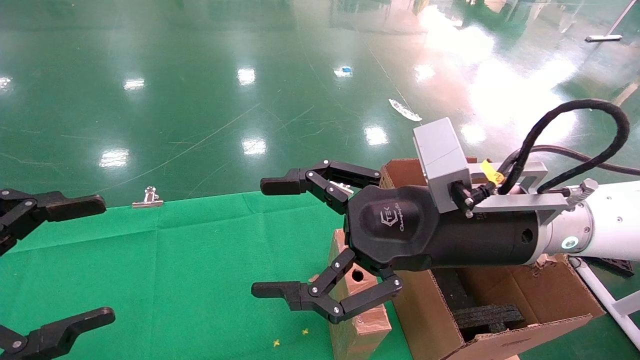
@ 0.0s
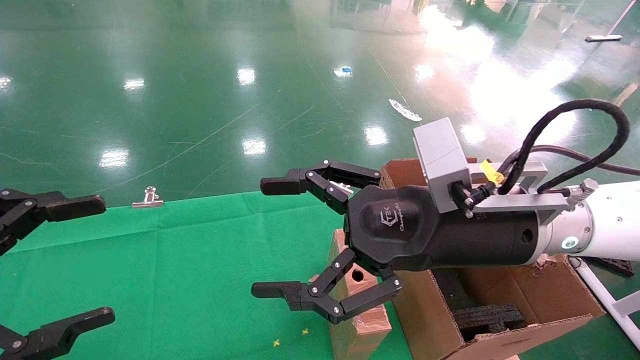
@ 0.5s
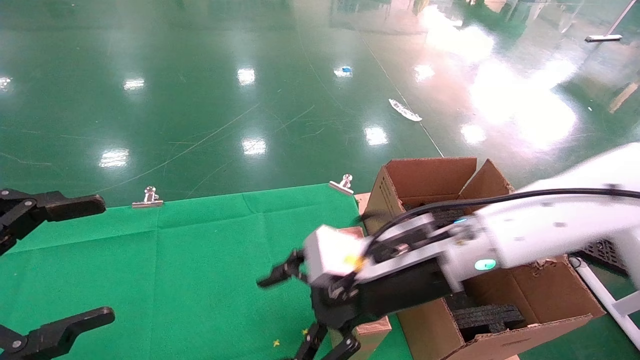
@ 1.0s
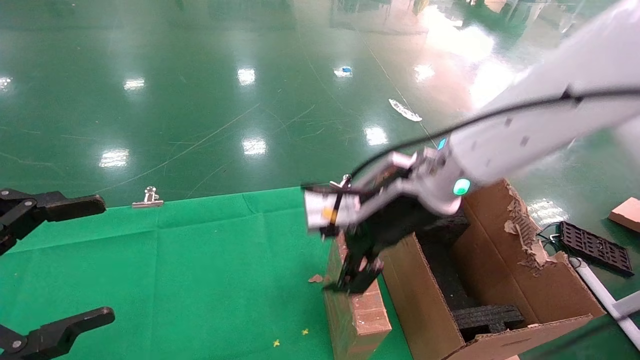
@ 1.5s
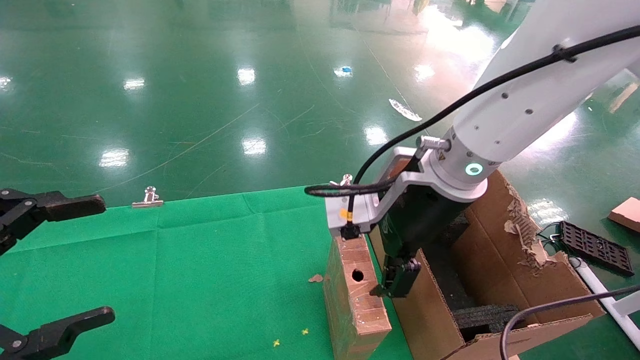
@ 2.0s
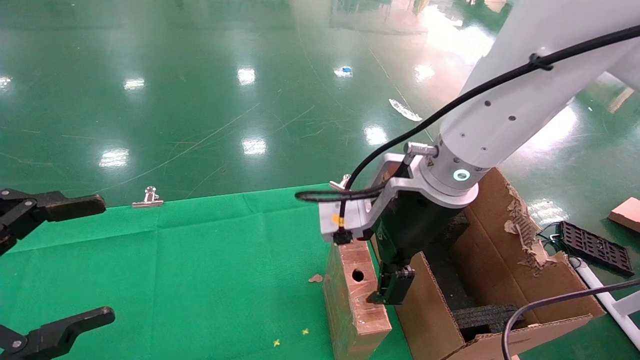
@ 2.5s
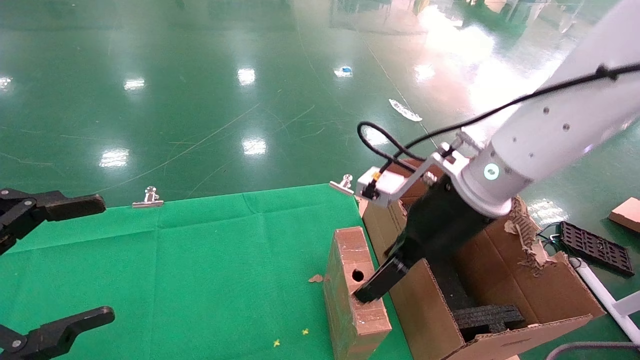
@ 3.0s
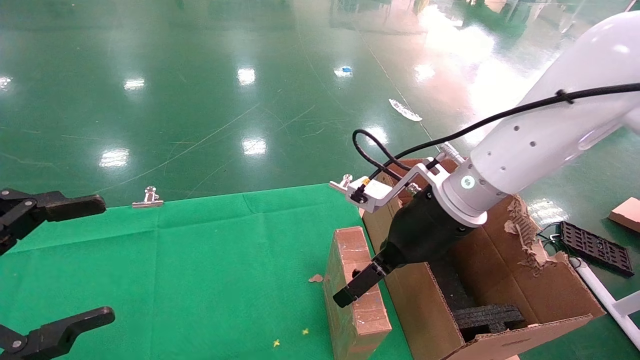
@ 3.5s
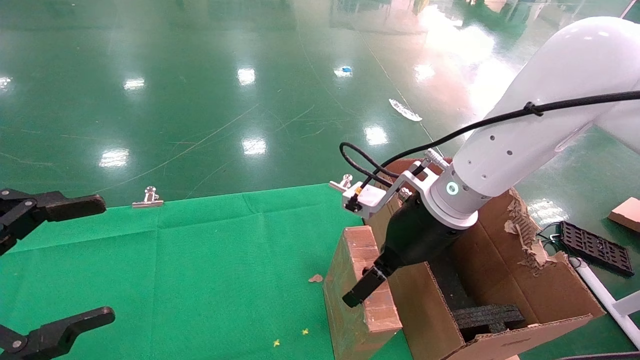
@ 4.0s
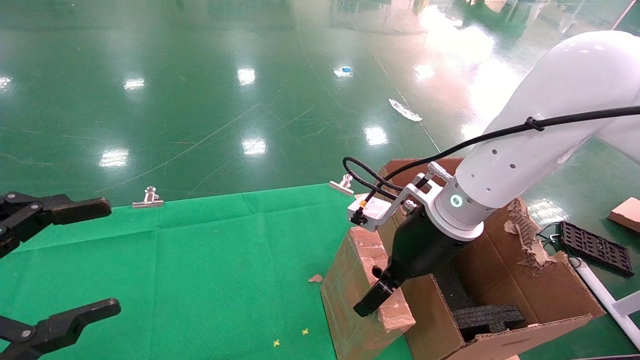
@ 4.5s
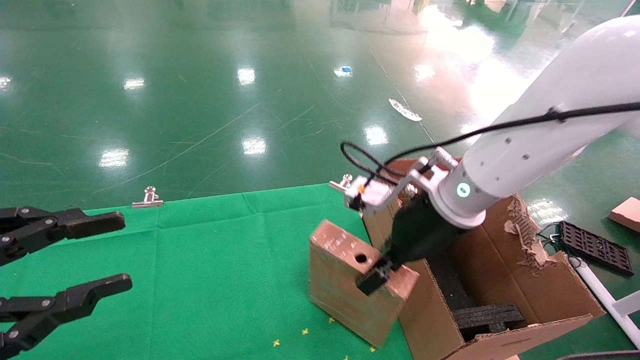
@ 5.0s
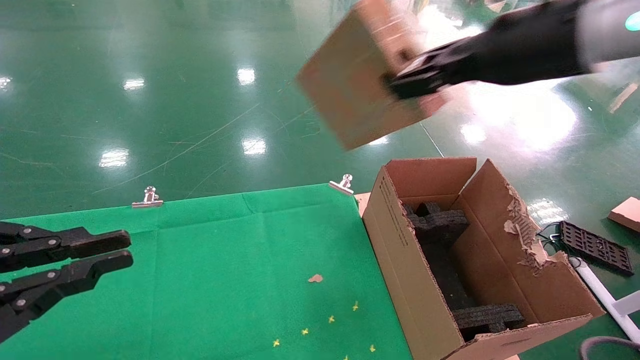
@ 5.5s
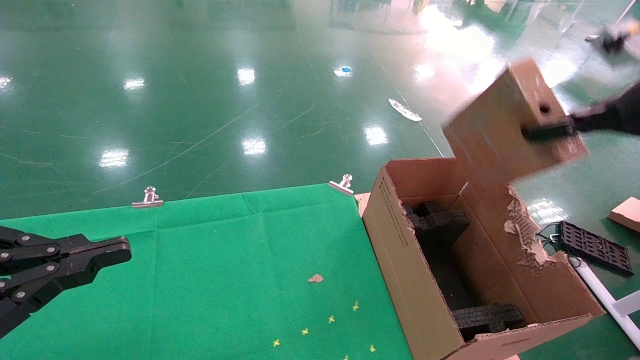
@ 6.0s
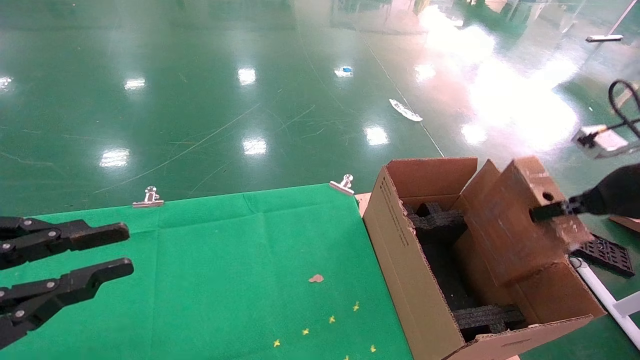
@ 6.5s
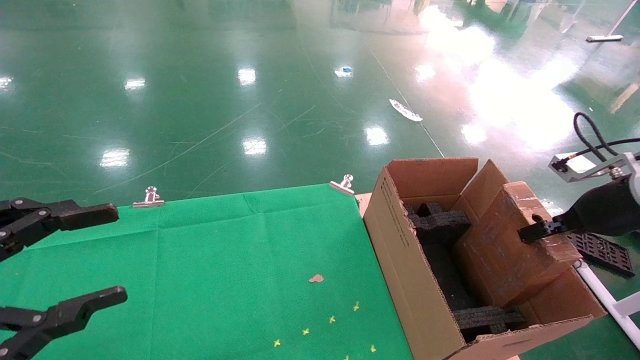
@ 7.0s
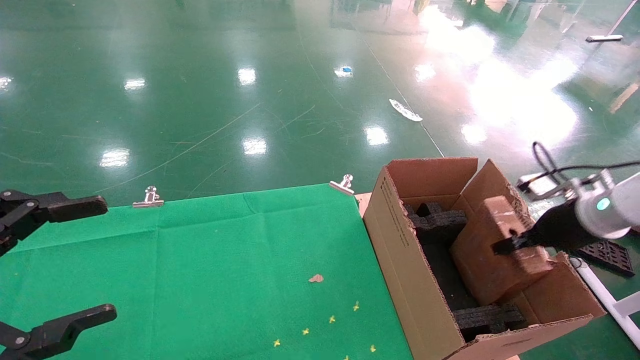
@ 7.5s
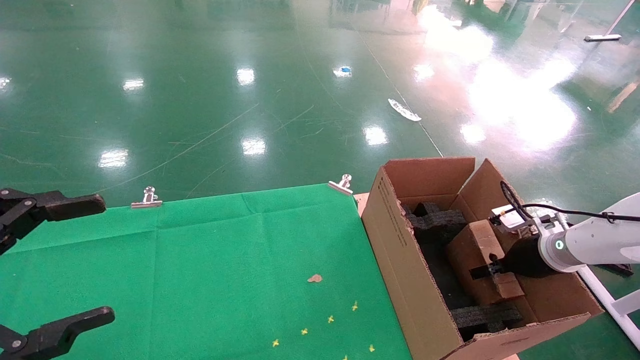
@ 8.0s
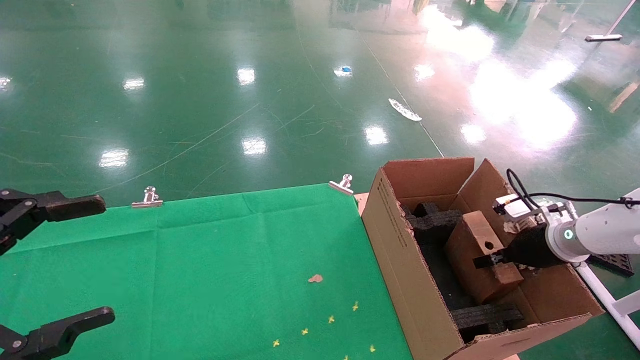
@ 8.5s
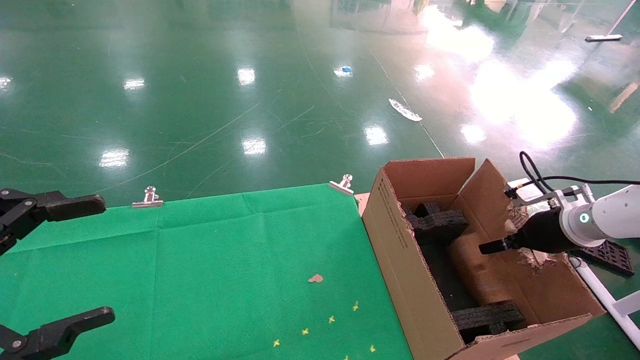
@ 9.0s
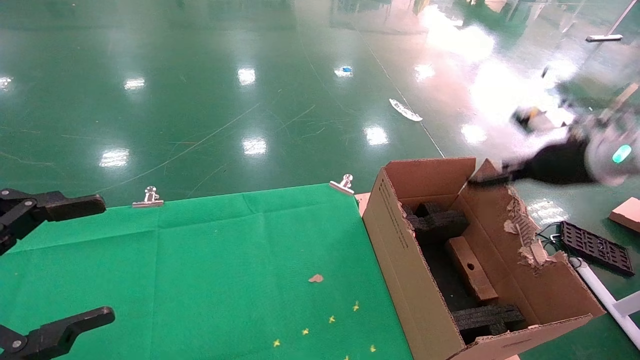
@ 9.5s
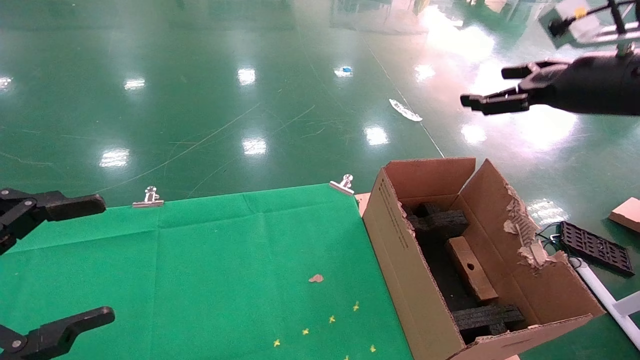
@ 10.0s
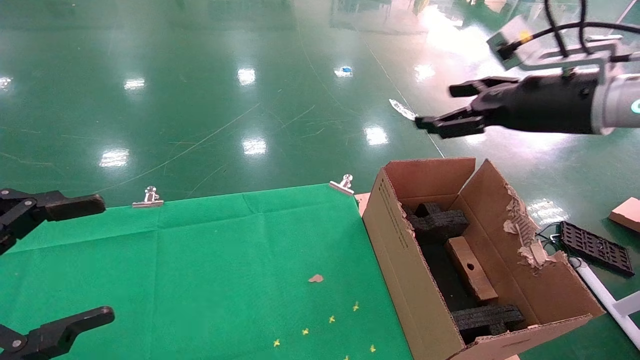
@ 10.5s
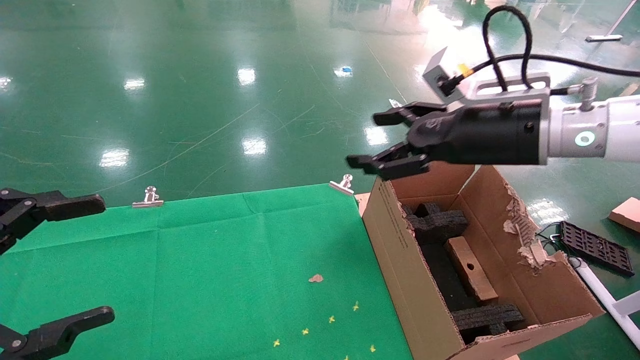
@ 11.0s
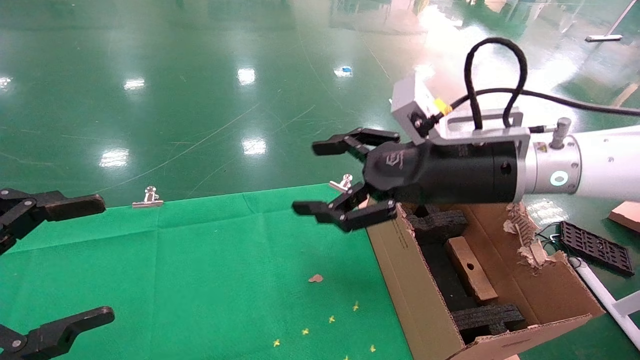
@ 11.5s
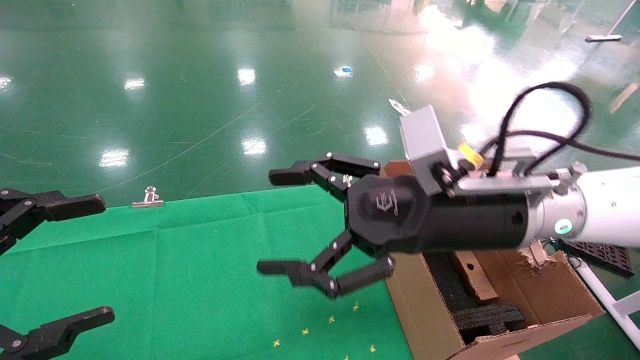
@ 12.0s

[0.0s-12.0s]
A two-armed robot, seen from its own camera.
Task of the whole recording: using a robotic arm to pick up a cardboard box and palace it the carton.
Step, 1.0s to 5.0s: Pick up the mouse and the power cord paper box.
Step, 5.5s to 9.0s: Place the mouse and the power cord paper box into the container.
0.0s to 2.0s: The right gripper heads forward, covering some 5 cm.
2.0s to 4.0s: The right gripper goes approximately 5 cm downward.
4.0s to 6.0s: The left gripper closes its fingers. Meanwhile the right gripper shifts approximately 25 cm to the right and upward, and closes up.
6.0s to 8.0s: The left gripper opens its fingers. Meanwhile the right gripper shifts some 30 cm downward and forward.
8.0s to 10.0s: The right gripper heads upward, covering about 25 cm, and opens.
10.0s to 12.0s: The right gripper moves to the left and downward, approximately 25 cm.

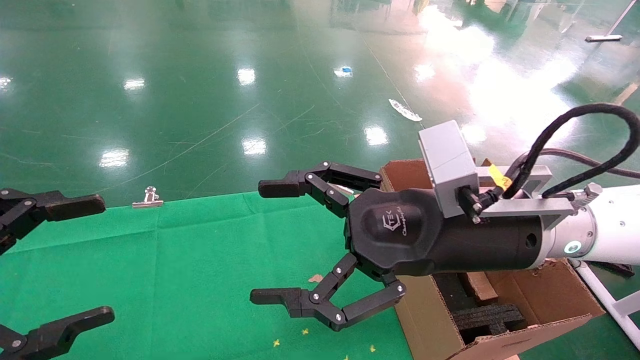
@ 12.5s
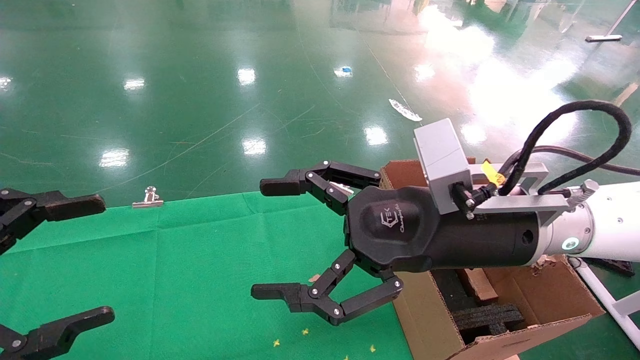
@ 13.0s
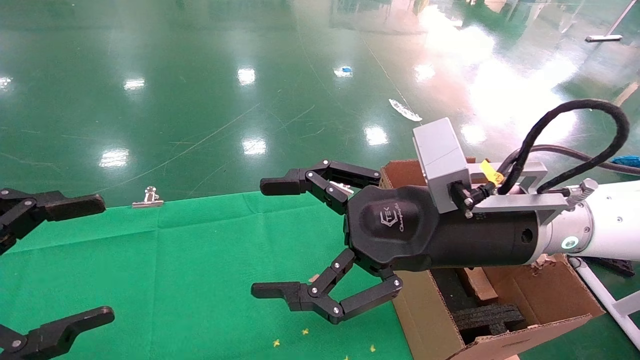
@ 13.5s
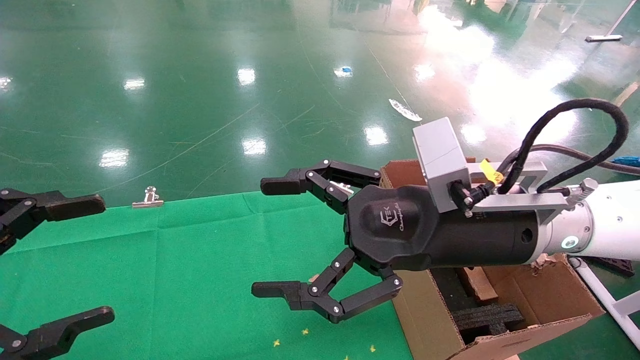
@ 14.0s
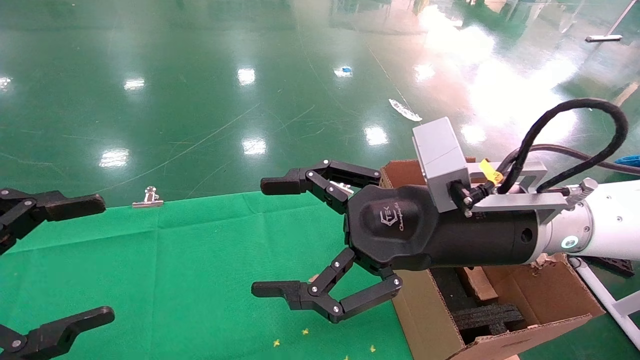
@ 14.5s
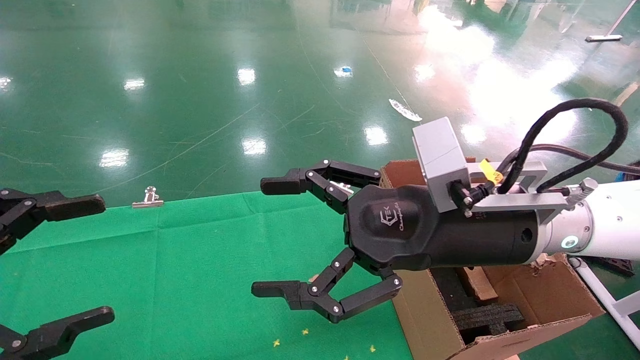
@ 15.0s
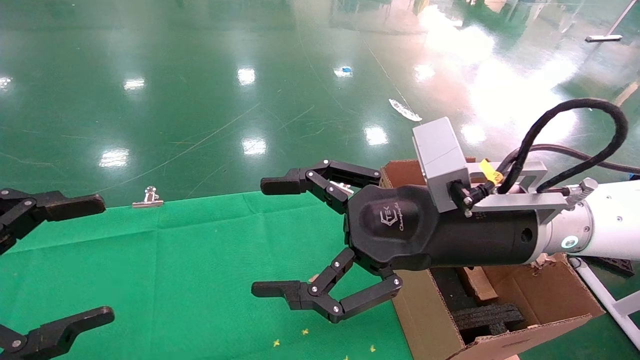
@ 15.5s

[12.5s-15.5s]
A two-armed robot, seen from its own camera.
Task of the whole recording: using a robotic arm to pick up a cardboard box and palace it the carton.
12.5s to 15.5s: Both grippers stay about where they are.
